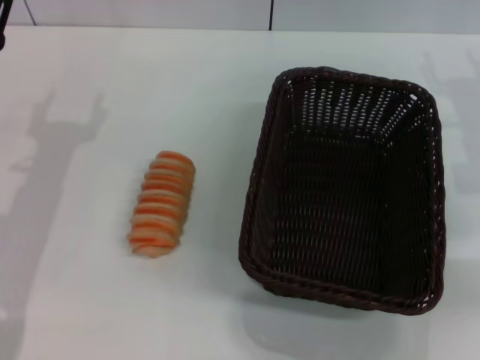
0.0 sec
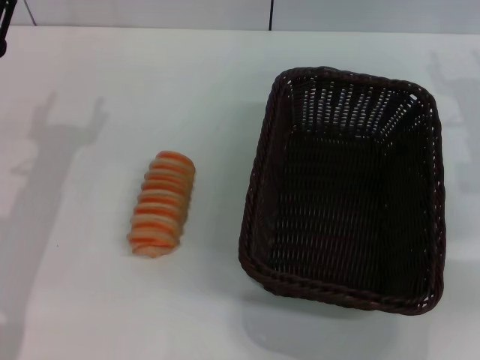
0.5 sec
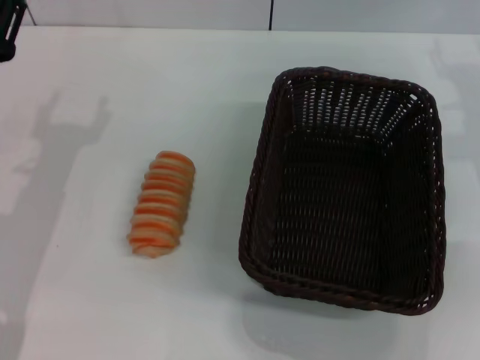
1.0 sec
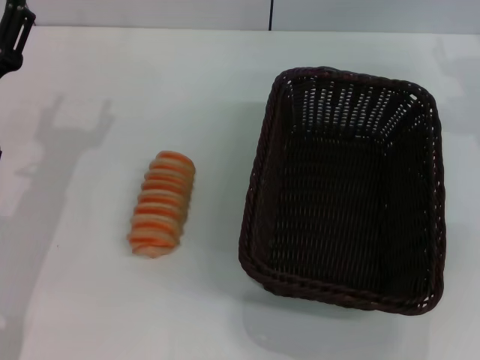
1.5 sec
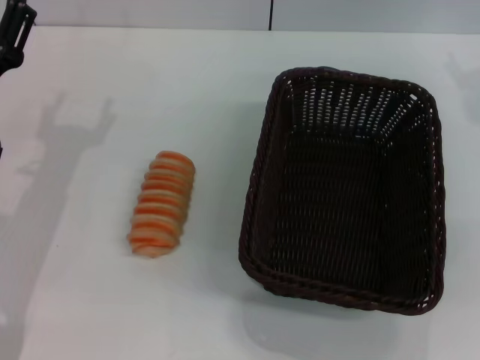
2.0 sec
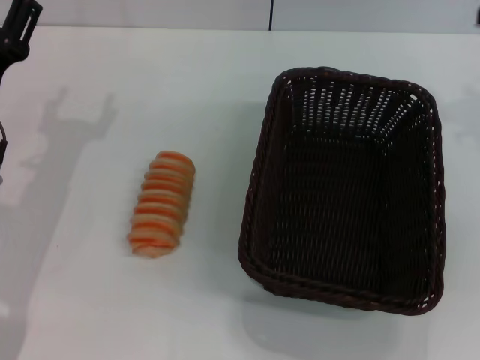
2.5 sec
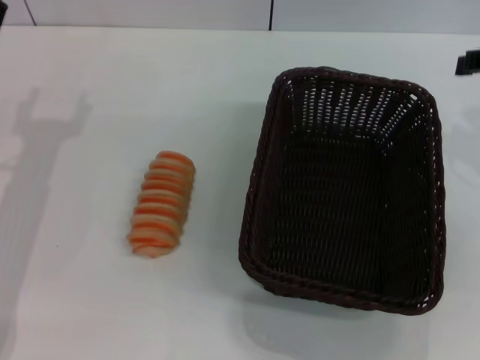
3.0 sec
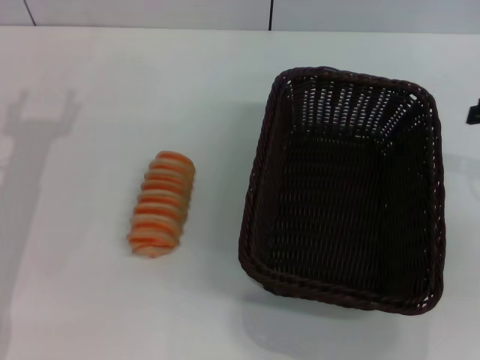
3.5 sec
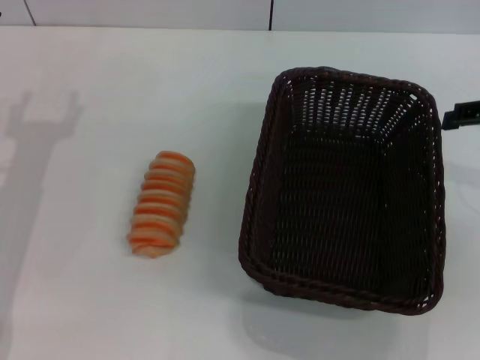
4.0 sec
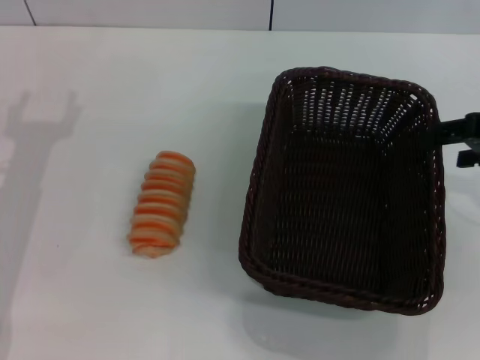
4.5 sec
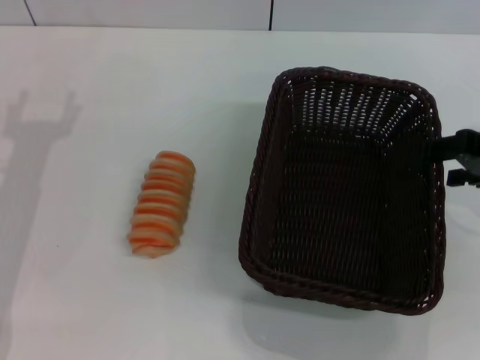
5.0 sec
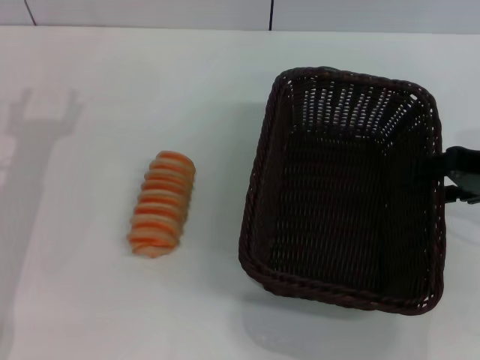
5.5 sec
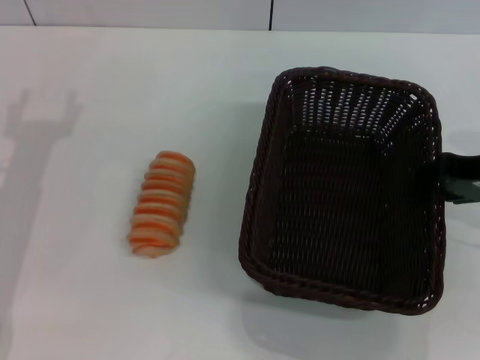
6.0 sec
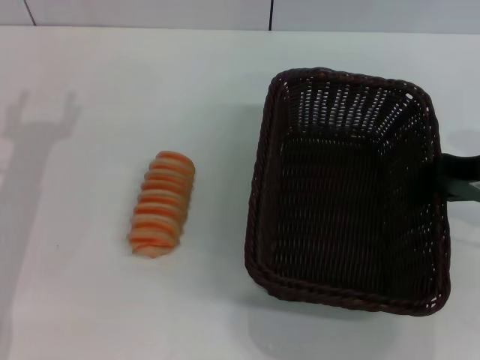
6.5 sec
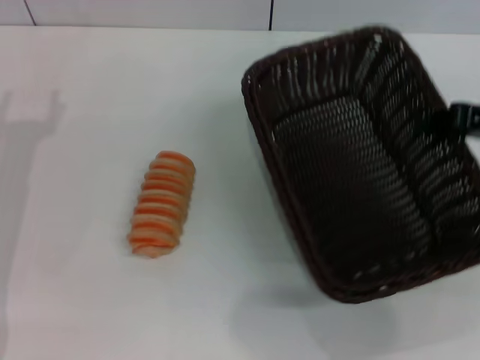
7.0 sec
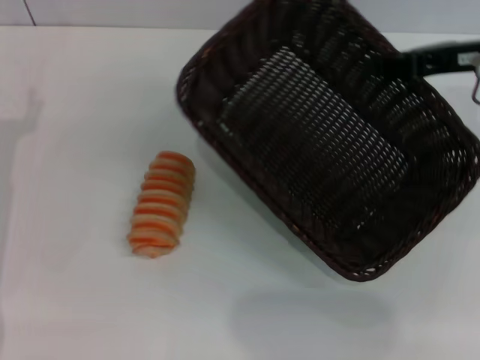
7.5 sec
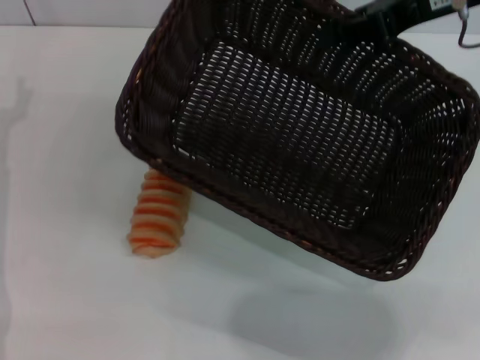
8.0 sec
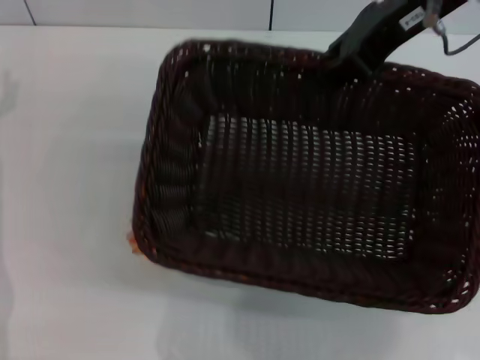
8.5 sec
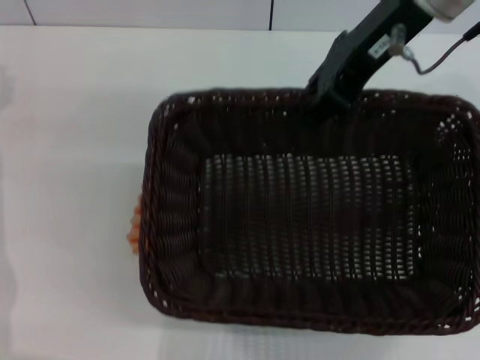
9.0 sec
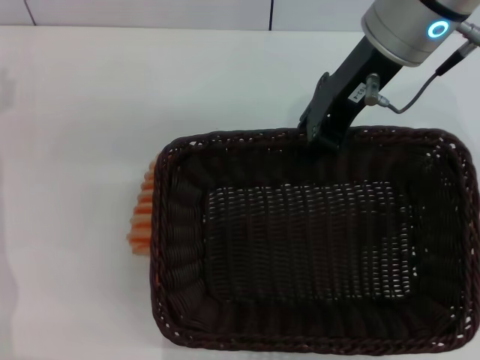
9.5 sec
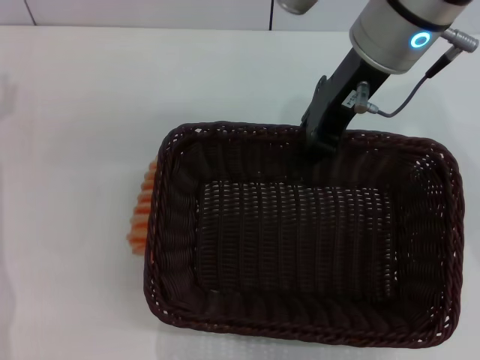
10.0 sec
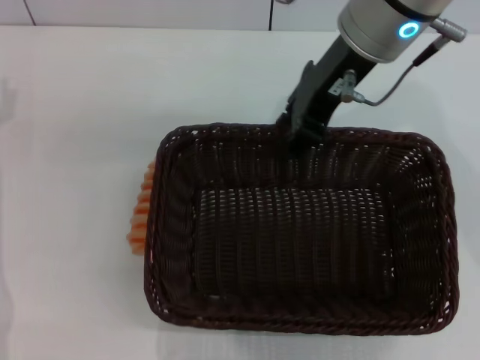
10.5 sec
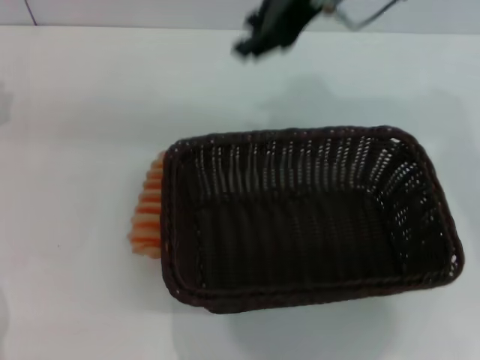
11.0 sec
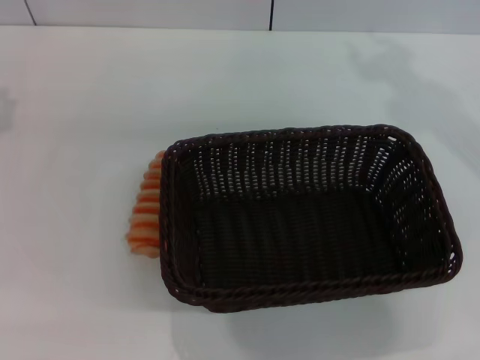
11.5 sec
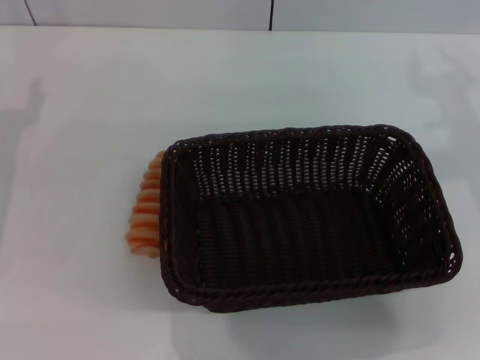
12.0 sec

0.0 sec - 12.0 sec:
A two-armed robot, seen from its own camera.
Step, 0.0 sec - 7.0 sec: Pick up the dark basket with the right gripper.
Step, 7.5 sec - 10.5 sec: Place the dark basket in the center of view with the right gripper.
4.0 sec - 6.0 sec: The right gripper shifts by approximately 5 cm.
6.0 sec - 8.0 sec: The right gripper travels upward, forward and to the left by roughly 15 cm, and closes up.
8.0 sec - 10.0 sec: The right gripper shifts approximately 10 cm to the left.
10.0 sec - 12.0 sec: The right gripper shifts some 15 cm to the right and backward, and opens.

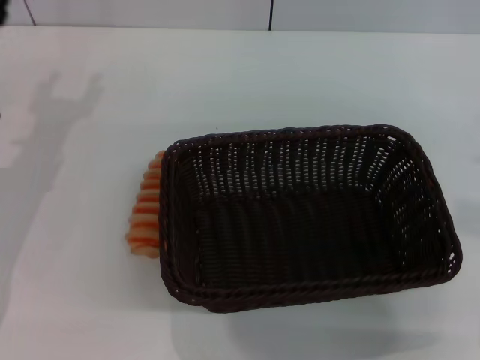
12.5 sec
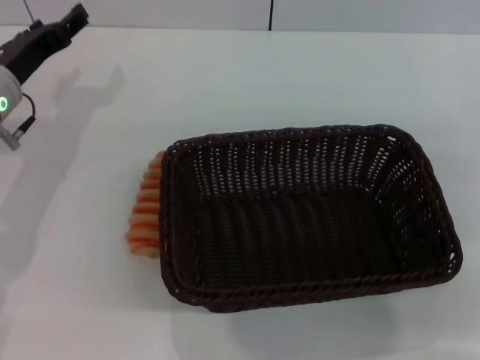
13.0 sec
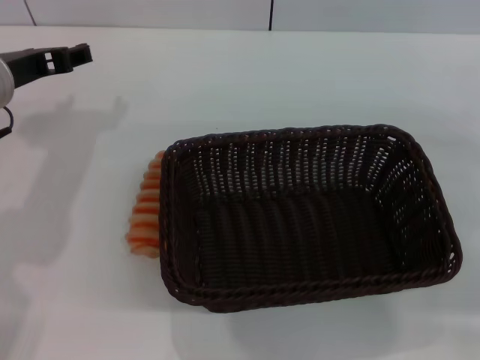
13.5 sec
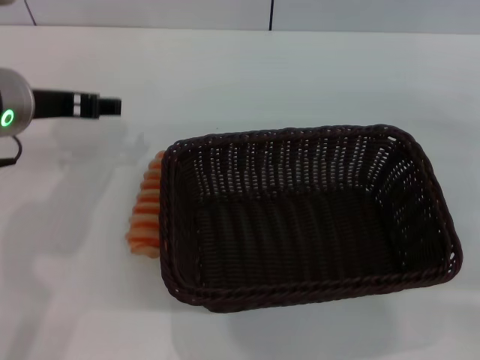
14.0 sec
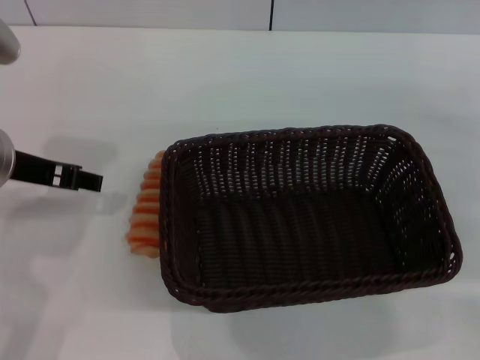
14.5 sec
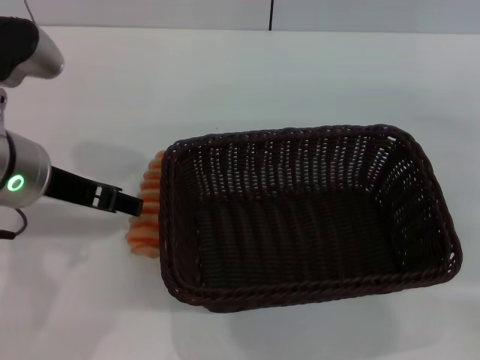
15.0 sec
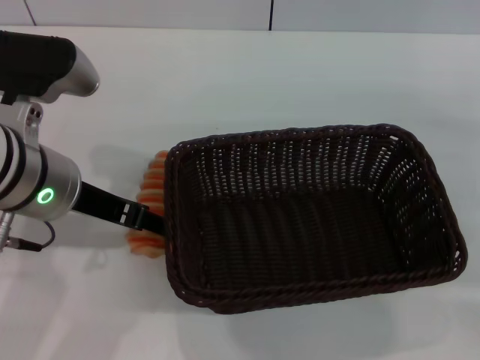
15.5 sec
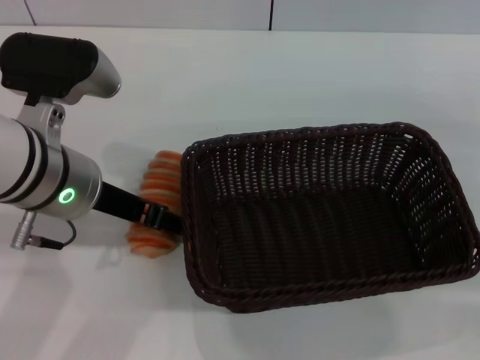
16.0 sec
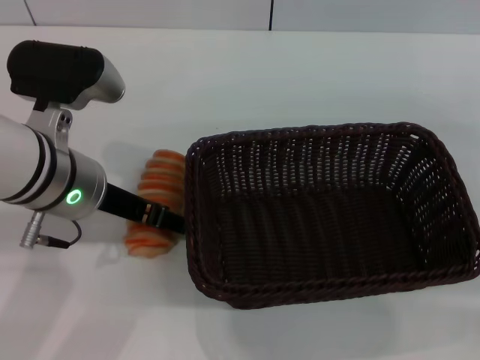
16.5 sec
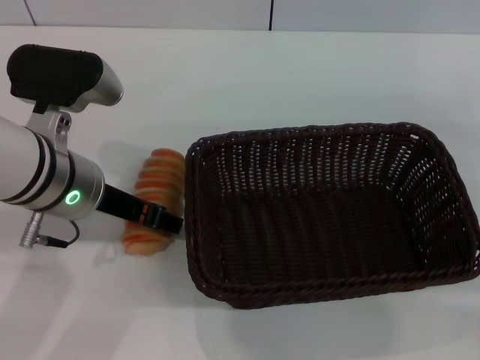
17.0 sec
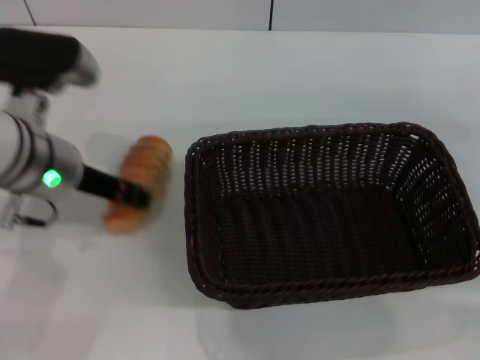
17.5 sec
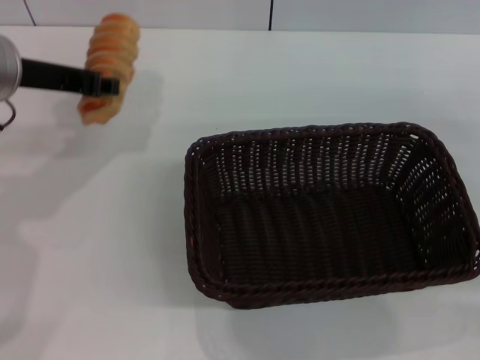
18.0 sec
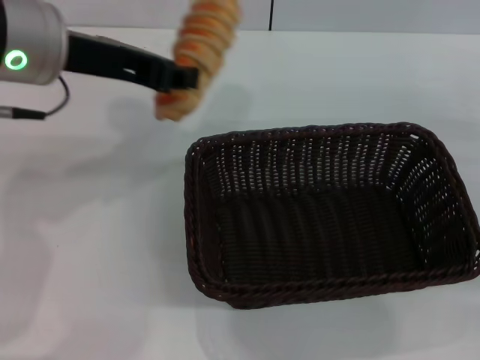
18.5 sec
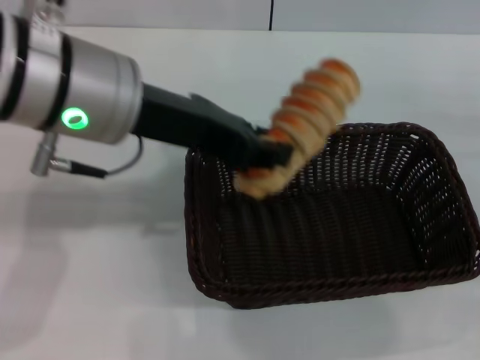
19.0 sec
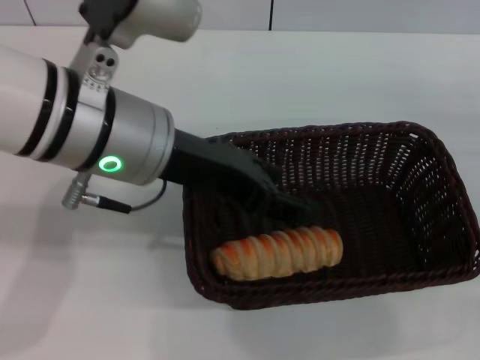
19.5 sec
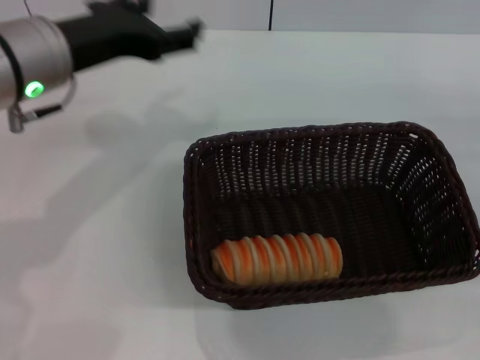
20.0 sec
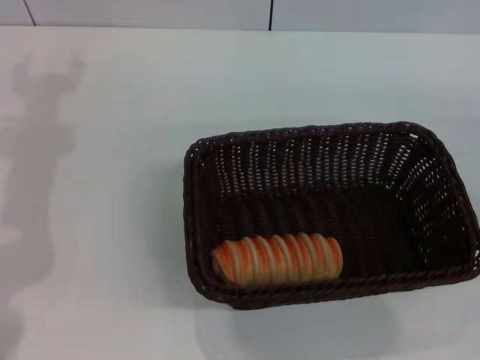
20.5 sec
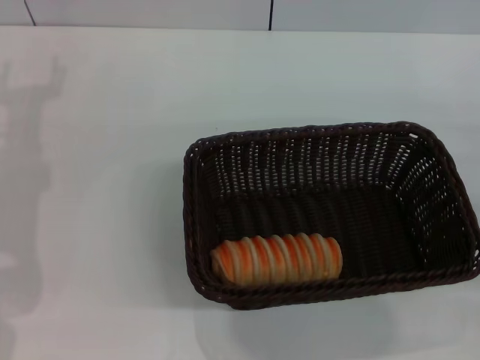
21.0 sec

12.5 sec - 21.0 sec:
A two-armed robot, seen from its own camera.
Step, 12.5 sec - 17.5 sec: Pick up the long bread with the left gripper.
Step, 18.5 sec - 19.5 sec: Place the long bread into the dark basket with the left gripper.
12.5 sec - 14.5 sec: The right gripper shifts some 10 cm to the right and forward; the left gripper is displaced upward and to the right by about 10 cm.
14.5 sec - 16.5 sec: The left gripper moves to the right, some 5 cm.
16.5 sec - 19.0 sec: The left gripper heads upward, covering approximately 10 cm, and closes up; the right gripper opens.
19.0 sec - 21.0 sec: The left gripper heads to the left and downward, covering roughly 20 cm, and opens its fingers.

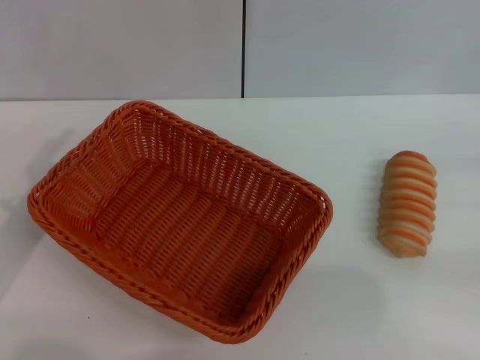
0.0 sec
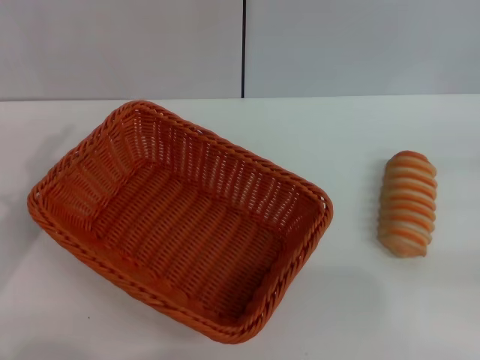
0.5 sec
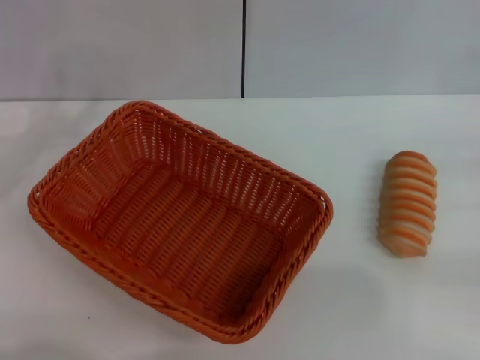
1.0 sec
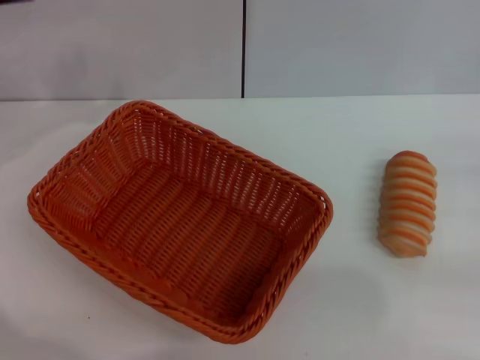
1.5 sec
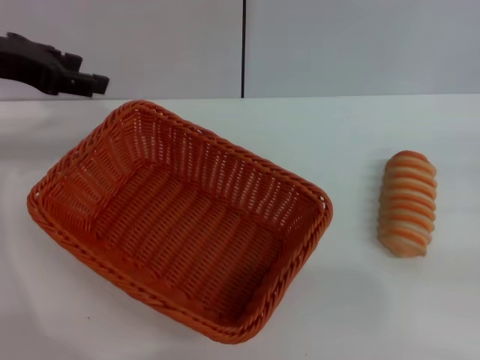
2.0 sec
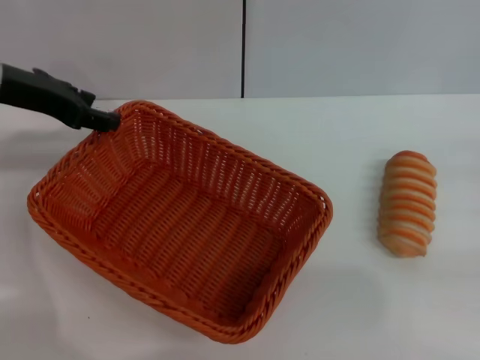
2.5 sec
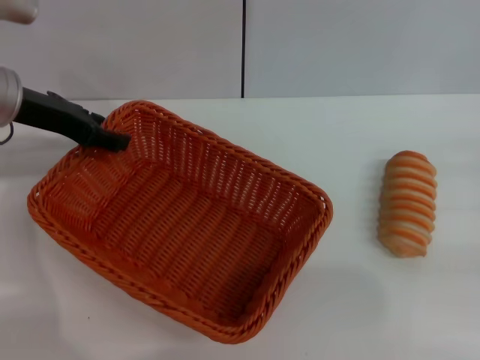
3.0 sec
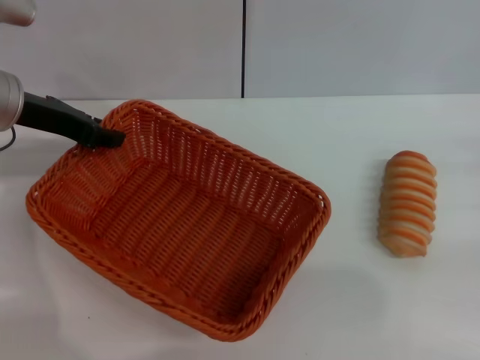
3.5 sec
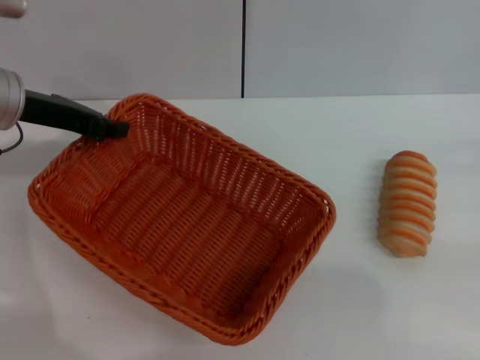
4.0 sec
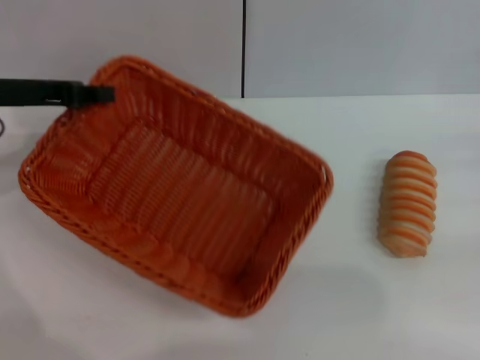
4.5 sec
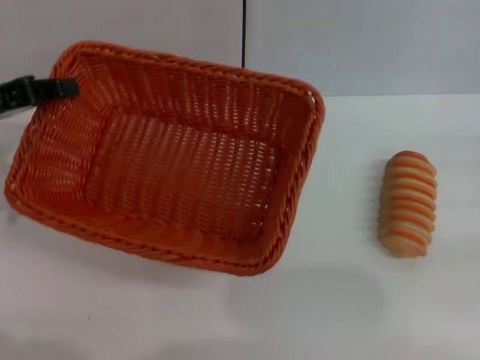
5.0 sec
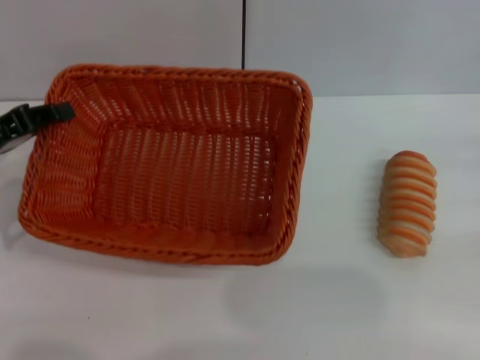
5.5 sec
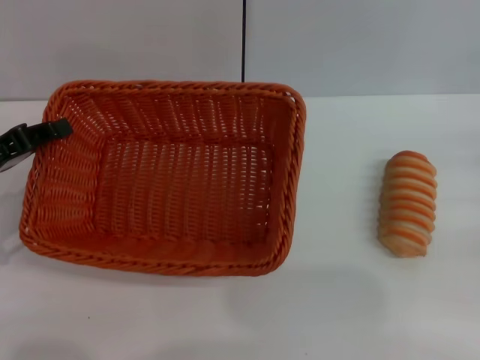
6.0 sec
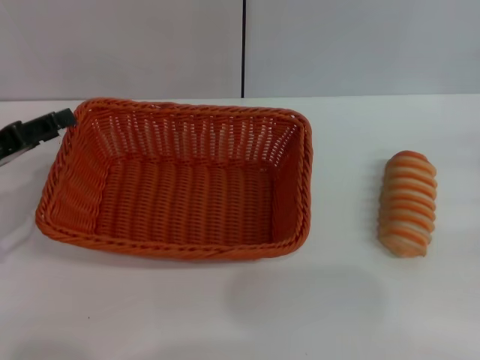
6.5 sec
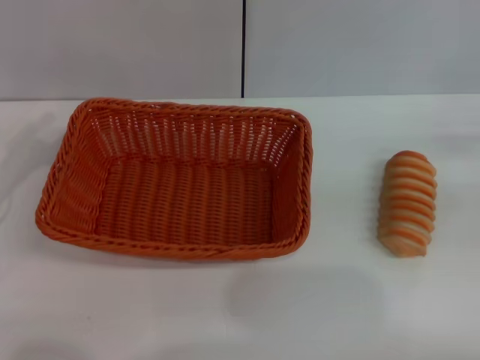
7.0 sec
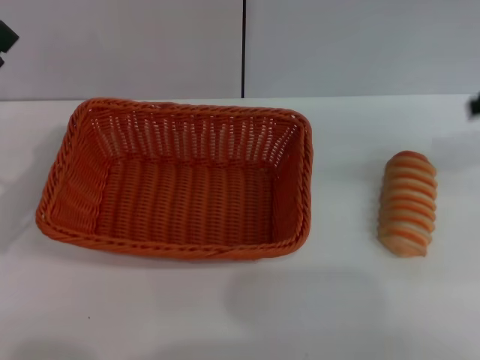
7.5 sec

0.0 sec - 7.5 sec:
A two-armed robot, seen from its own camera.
Step, 0.0 sec - 4.0 sec: Pick up the light basket with the left gripper.
Step, 4.5 sec - 6.0 sec: Place the light basket in the center of view with the left gripper.
0.0 sec - 2.0 sec: The left gripper moves forward and upward, about 20 cm.
2.0 sec - 4.0 sec: The left gripper goes about 5 cm downward, and closes its fingers.
4.0 sec - 5.5 sec: The left gripper goes about 10 cm backward and to the left.
5.5 sec - 7.5 sec: The right gripper moves upward and forward, some 20 cm, while the left gripper opens.
